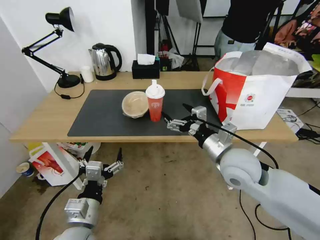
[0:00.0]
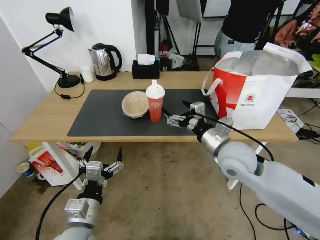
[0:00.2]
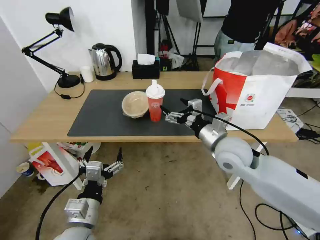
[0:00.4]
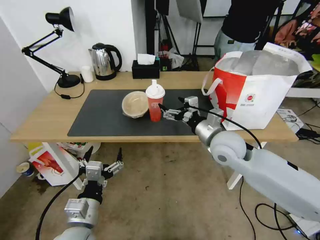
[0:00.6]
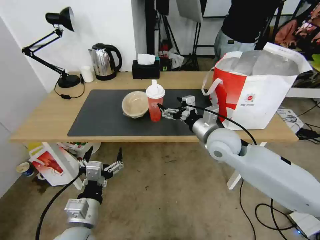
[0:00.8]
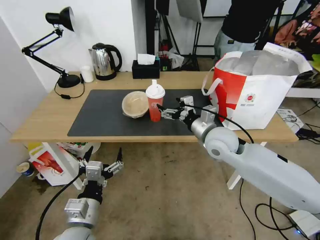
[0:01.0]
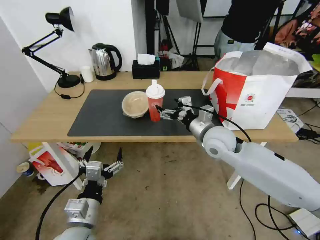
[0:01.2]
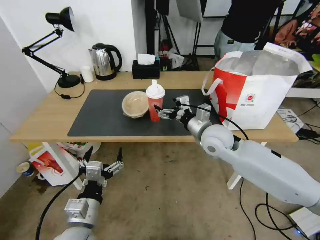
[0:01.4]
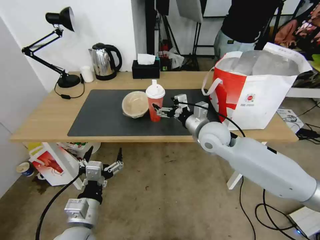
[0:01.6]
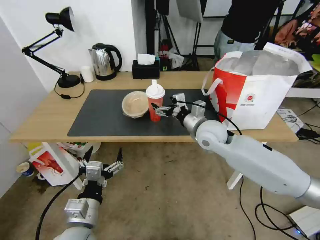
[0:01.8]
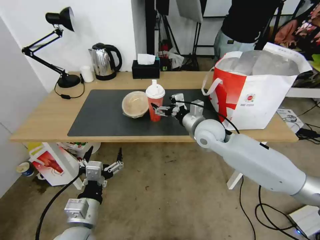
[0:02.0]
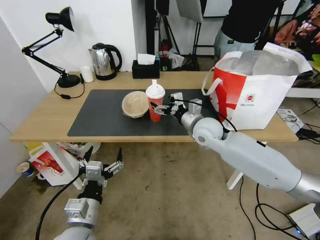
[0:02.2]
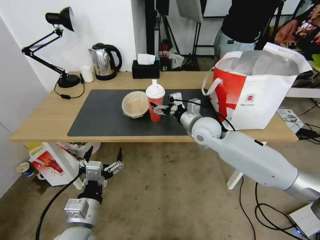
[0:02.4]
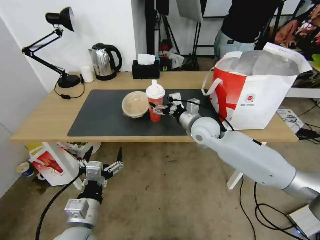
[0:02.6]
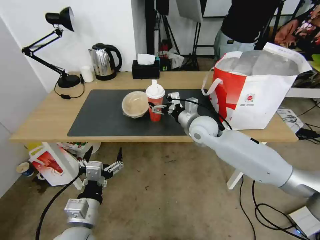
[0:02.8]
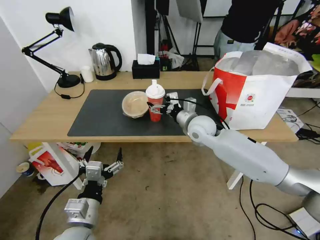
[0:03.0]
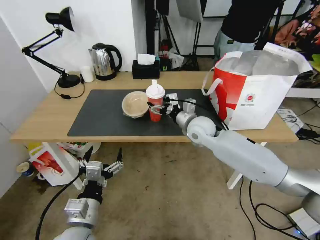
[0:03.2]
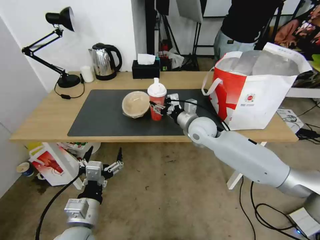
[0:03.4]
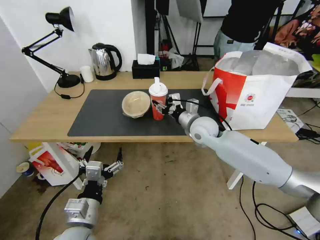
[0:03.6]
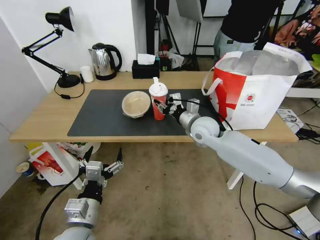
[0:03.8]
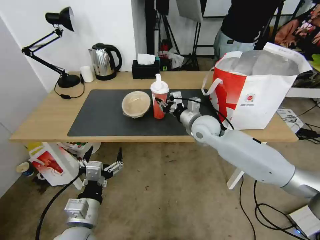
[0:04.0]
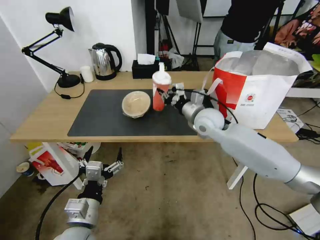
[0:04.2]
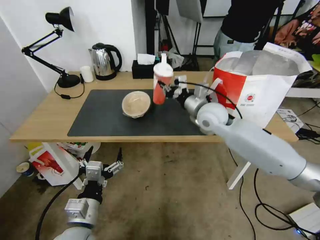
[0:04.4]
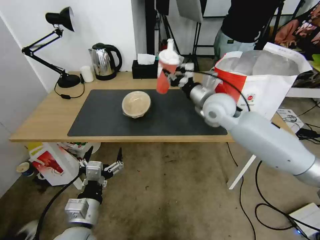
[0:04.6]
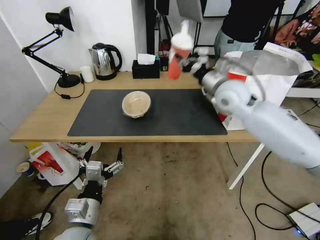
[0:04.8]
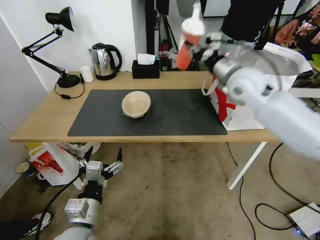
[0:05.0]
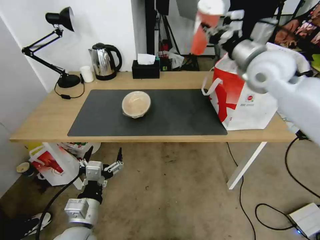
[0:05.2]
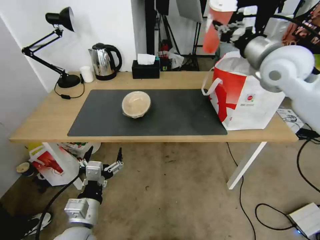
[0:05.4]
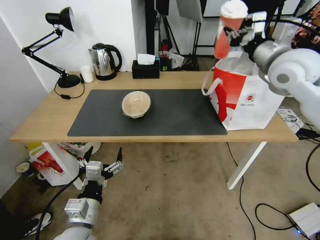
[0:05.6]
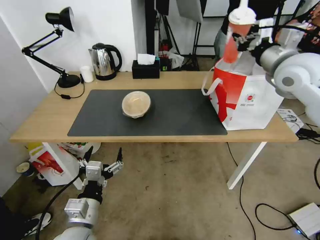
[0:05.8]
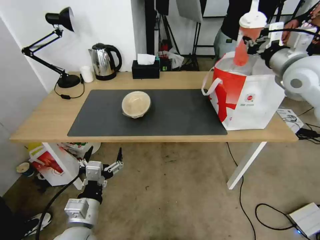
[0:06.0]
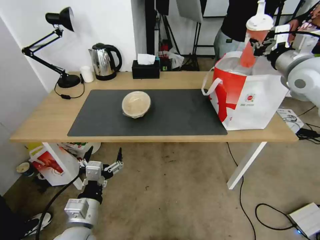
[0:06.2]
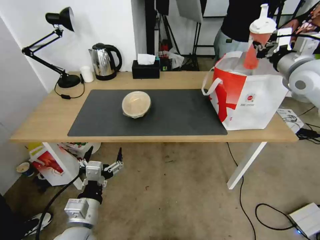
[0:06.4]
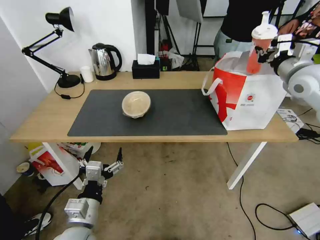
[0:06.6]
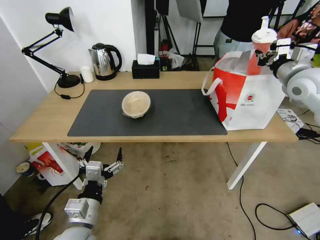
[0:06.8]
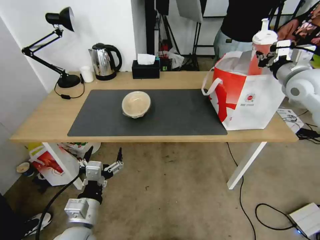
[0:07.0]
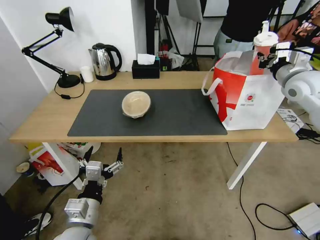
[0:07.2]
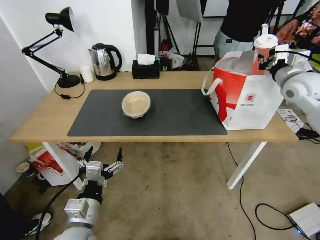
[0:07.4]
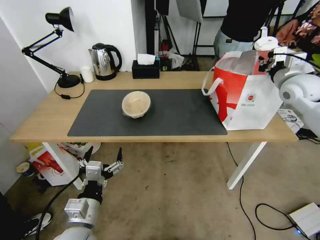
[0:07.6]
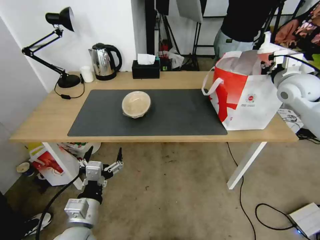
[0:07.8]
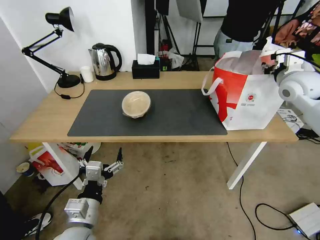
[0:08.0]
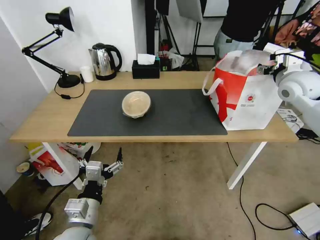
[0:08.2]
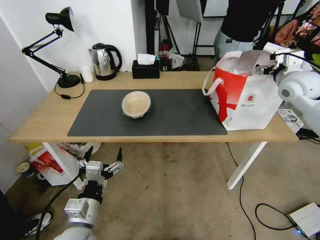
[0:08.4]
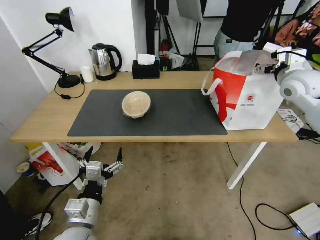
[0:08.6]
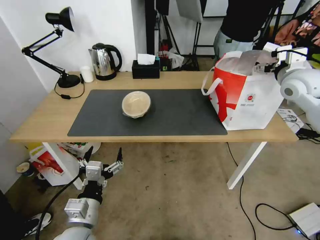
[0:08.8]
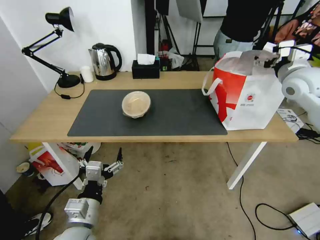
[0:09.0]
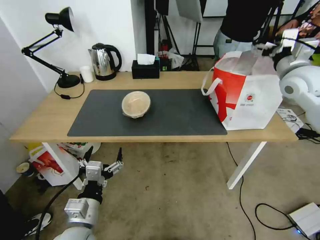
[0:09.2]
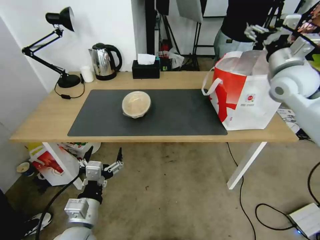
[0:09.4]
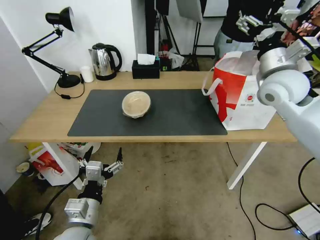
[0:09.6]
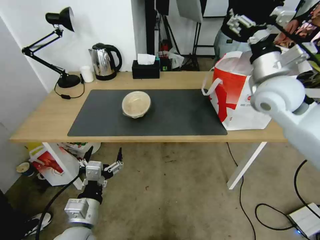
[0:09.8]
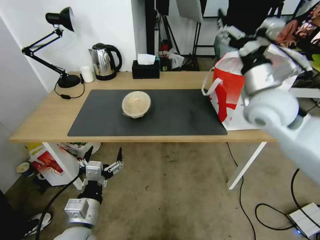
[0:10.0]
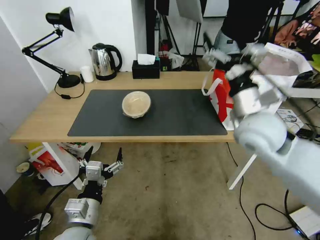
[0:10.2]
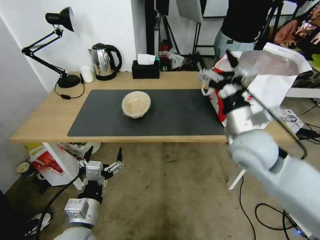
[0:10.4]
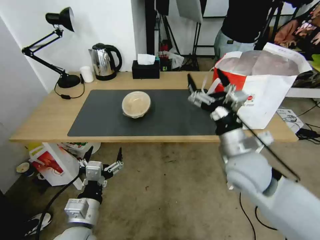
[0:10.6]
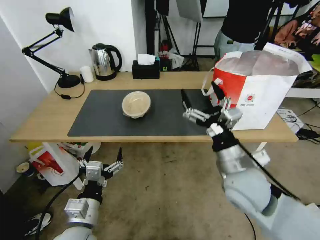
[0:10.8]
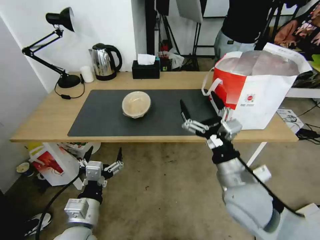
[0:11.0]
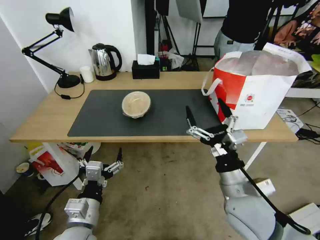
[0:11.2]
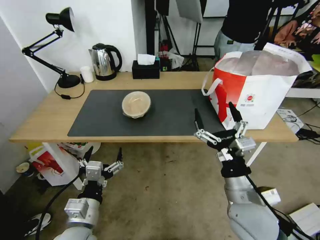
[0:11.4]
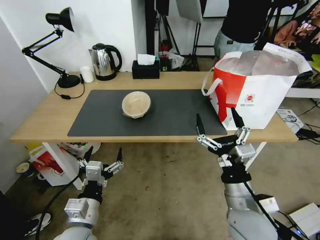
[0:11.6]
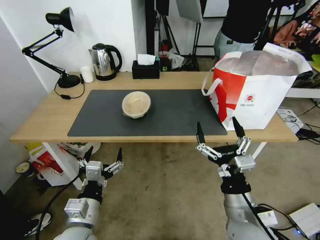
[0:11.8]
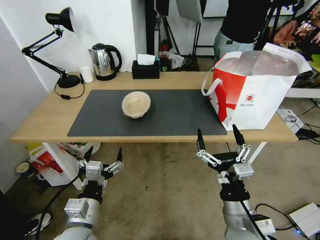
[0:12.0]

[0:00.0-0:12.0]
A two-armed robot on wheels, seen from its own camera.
Task of the whole recording: Pick up the trash from the table and place it into the takeout bag.
0:00.0 to 0:01.6: The right gripper is displaced forward by approximately 10 cm.
0:01.6 to 0:03.0: The right gripper is displaced forward by about 5 cm.
0:03.0 to 0:04.4: The right gripper heads upward, covering roughly 5 cm, and closes up.
0:04.4 to 0:06.0: The right gripper heads to the right and upward, covering some 25 cm.
0:06.0 to 0:07.6: The right gripper moves downward and to the right, about 10 cm.
0:07.6 to 0:09.0: The right gripper opens its fingers.
0:09.0 to 0:10.4: The right gripper shifts some 25 cm to the left, backward and downward.
0:10.4 to 0:12.0: The right gripper is displaced backward and downward by approximately 20 cm.

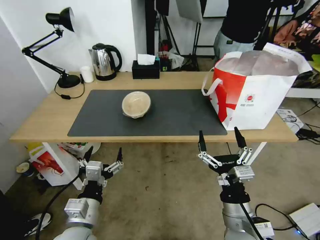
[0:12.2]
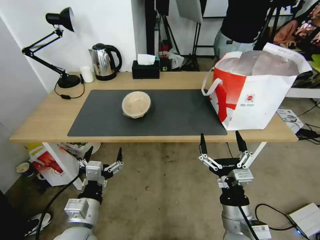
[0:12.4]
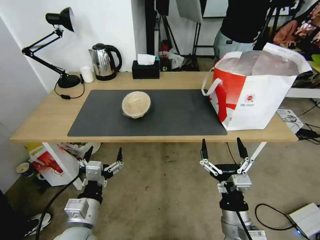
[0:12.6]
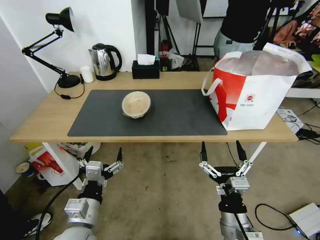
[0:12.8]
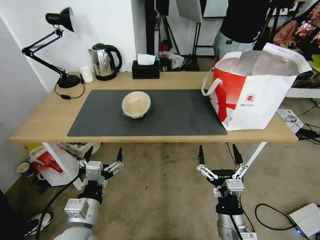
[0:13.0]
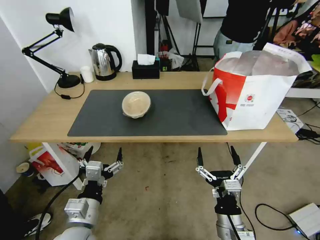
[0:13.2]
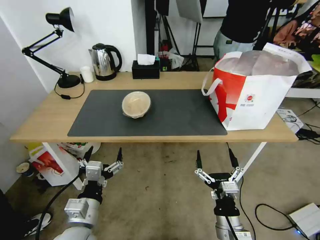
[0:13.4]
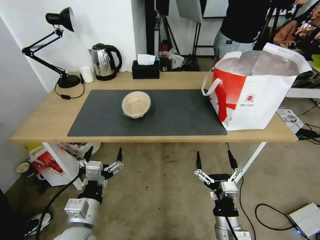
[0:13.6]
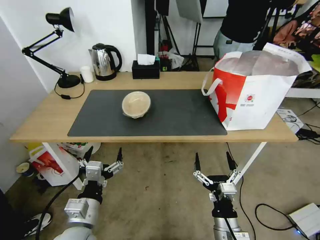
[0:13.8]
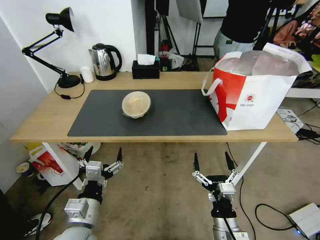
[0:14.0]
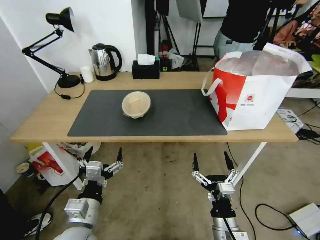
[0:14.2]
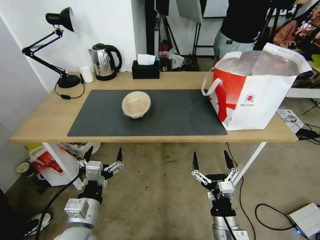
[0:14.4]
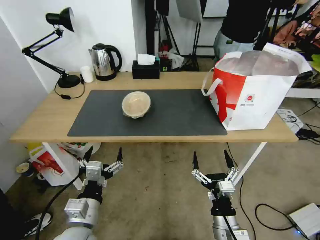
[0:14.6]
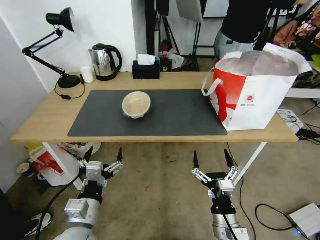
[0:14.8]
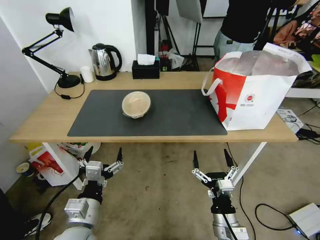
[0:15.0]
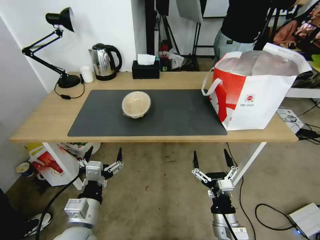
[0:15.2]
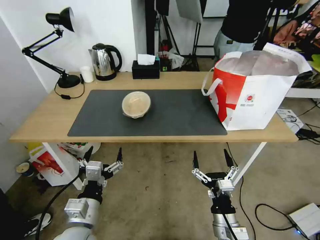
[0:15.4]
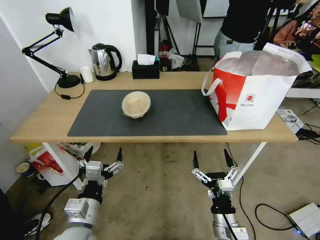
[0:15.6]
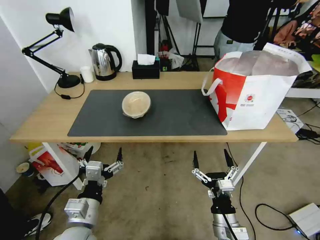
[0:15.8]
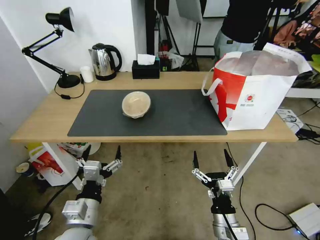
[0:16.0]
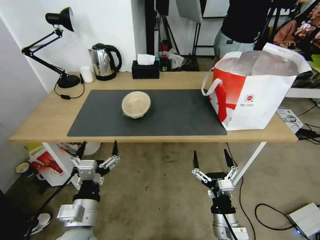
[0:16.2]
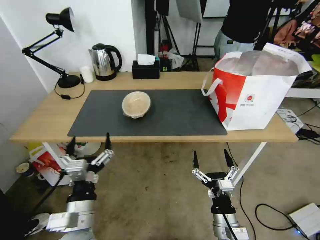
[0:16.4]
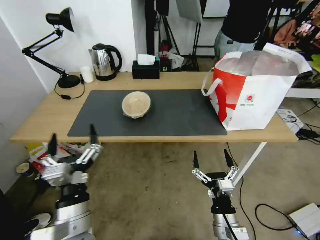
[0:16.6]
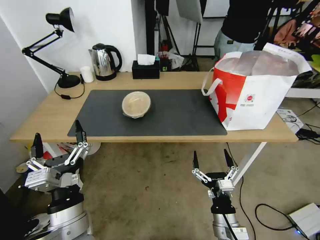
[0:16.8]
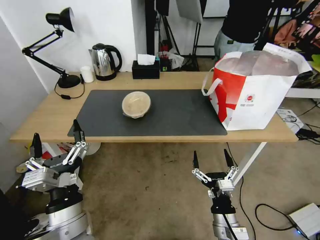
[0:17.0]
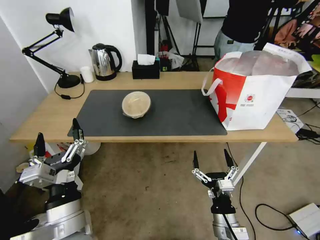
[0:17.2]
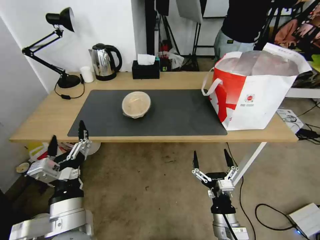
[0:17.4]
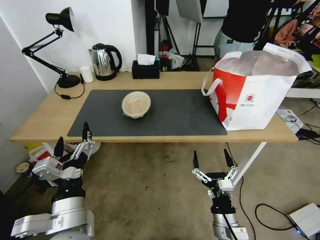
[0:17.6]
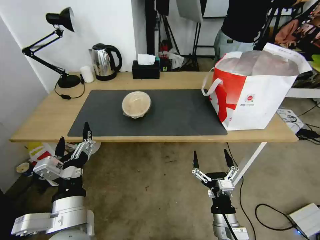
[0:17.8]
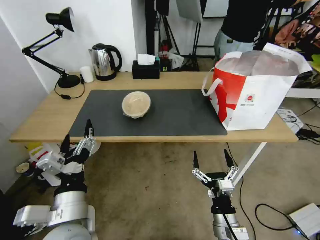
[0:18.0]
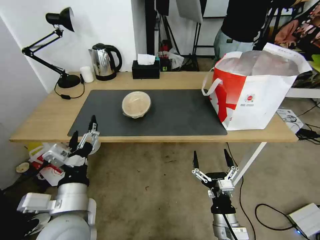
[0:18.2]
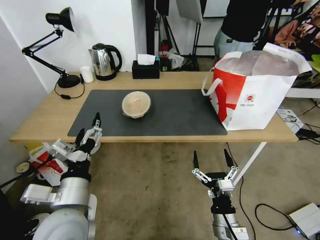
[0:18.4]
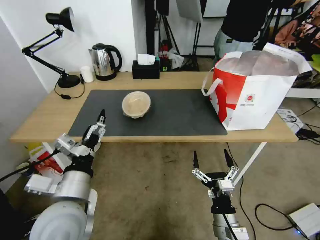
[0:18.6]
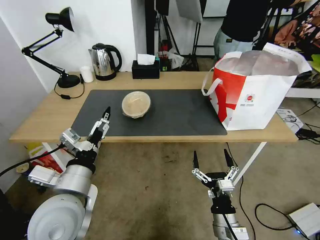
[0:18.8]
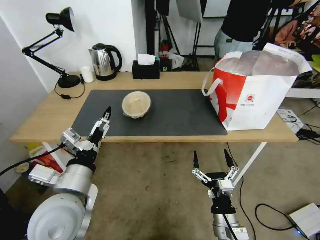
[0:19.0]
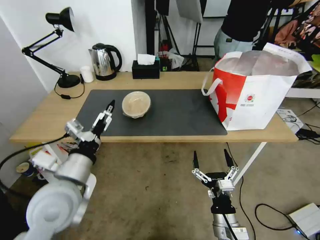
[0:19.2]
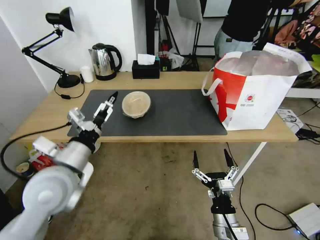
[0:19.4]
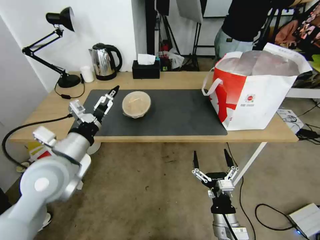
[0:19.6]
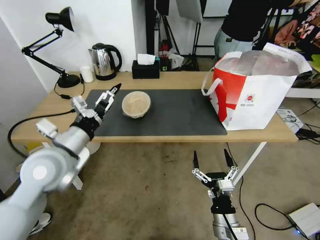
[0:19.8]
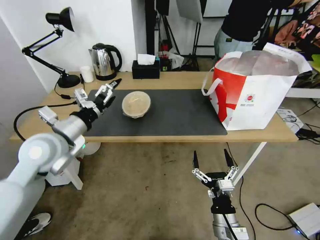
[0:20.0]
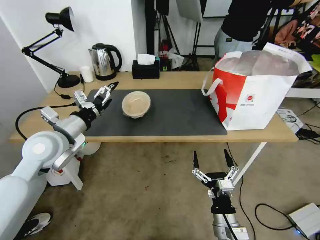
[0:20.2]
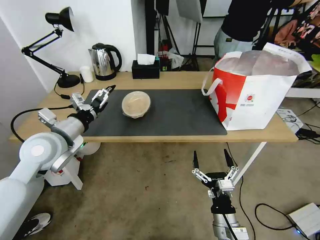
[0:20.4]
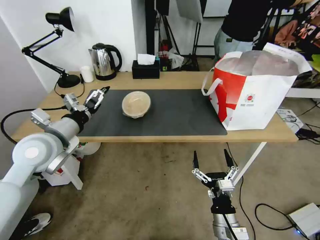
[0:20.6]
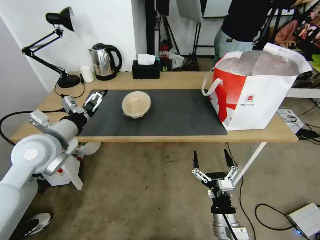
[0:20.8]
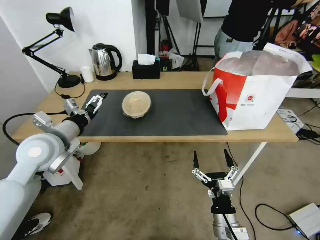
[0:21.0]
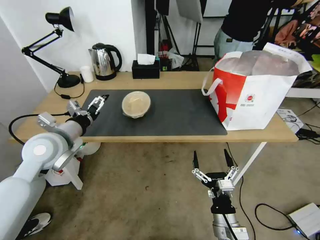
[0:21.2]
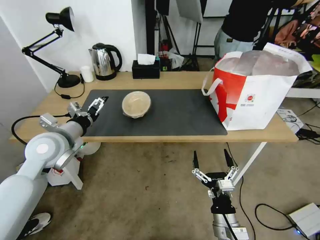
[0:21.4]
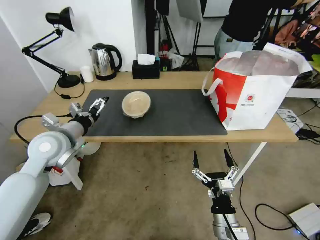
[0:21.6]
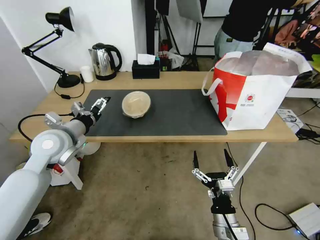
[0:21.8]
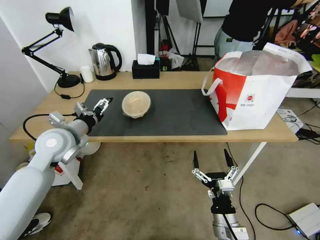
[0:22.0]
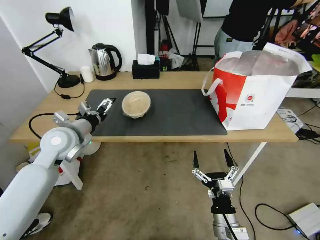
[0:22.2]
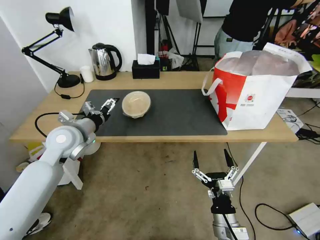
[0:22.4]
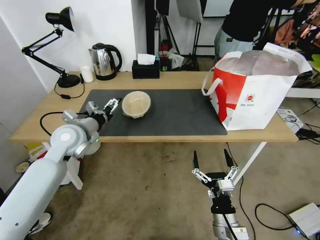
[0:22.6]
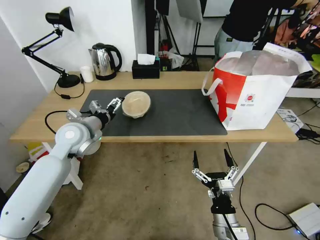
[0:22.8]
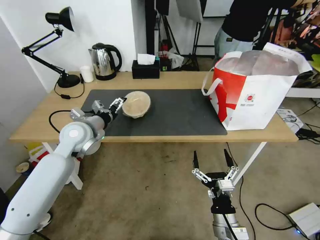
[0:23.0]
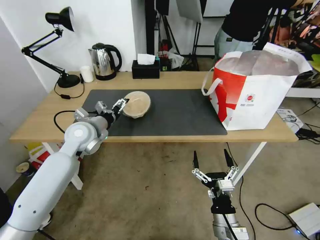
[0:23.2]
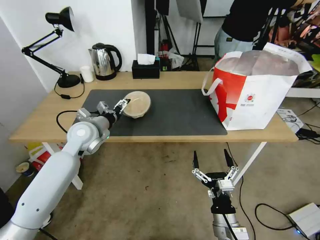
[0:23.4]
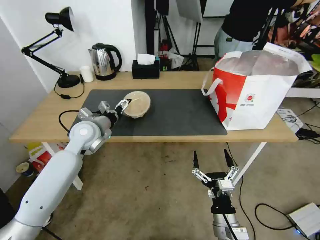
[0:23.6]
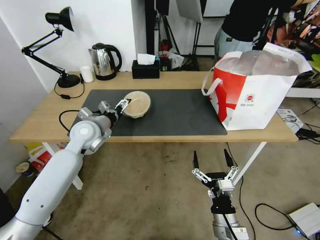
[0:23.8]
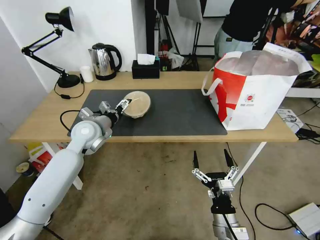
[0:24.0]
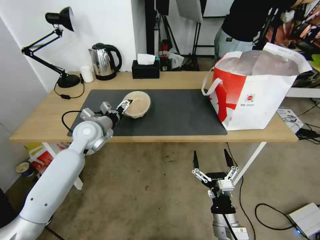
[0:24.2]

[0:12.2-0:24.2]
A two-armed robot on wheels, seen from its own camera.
Task of the whole recording: Pick up the trash from the table and place it into the takeout bag.
0:12.2 to 0:13.8: The right gripper moves downward, roughly 10 cm.
0:13.8 to 0:15.2: Both grippers stay about where they are.
0:15.2 to 0:16.6: The left gripper changes place by about 5 cm.
0:18.2 to 0:19.8: The left gripper is displaced forward, upward and to the left by some 15 cm.
0:19.8 to 0:21.2: The left gripper heads forward, covering about 5 cm.
0:21.2 to 0:22.6: The left gripper shifts about 5 cm forward.
0:22.6 to 0:24.2: The left gripper ends up roughly 5 cm from where it was.
